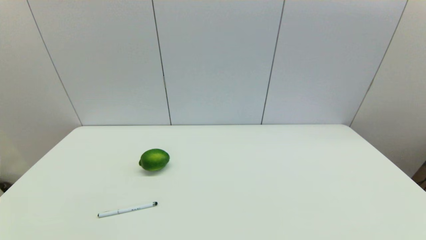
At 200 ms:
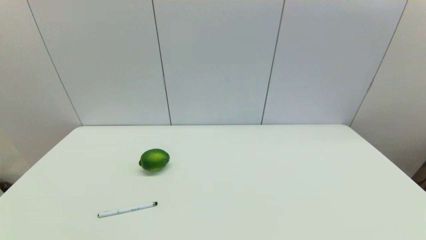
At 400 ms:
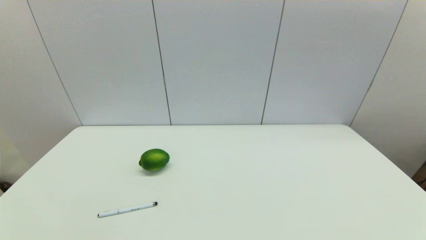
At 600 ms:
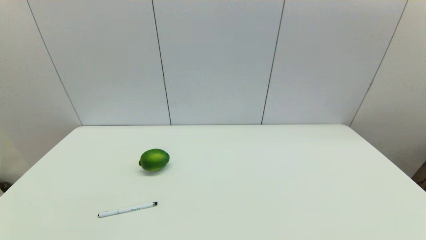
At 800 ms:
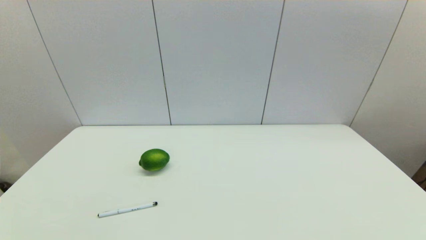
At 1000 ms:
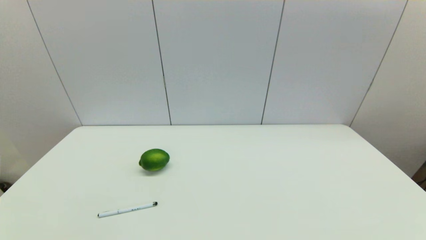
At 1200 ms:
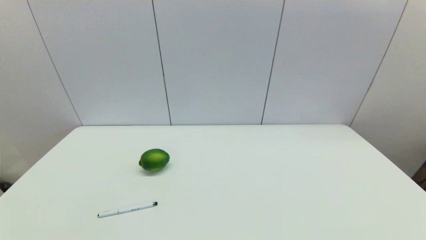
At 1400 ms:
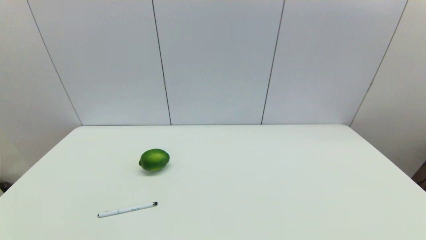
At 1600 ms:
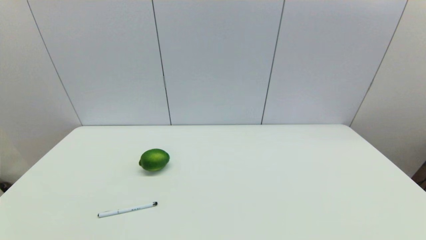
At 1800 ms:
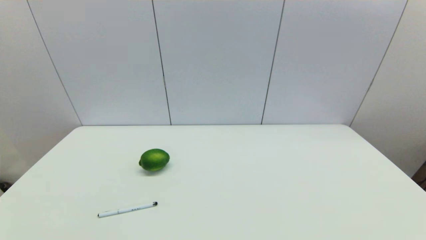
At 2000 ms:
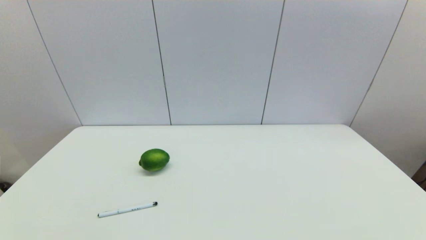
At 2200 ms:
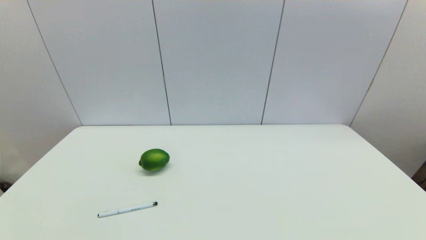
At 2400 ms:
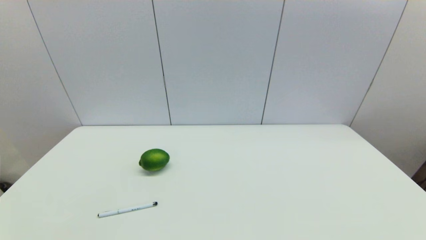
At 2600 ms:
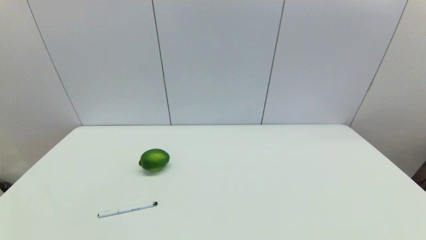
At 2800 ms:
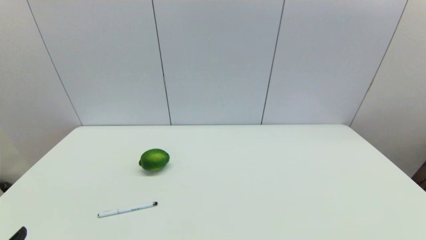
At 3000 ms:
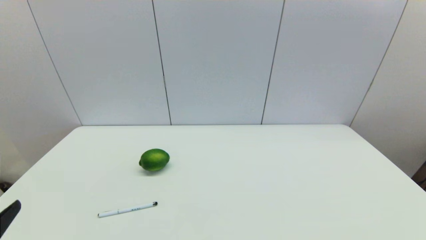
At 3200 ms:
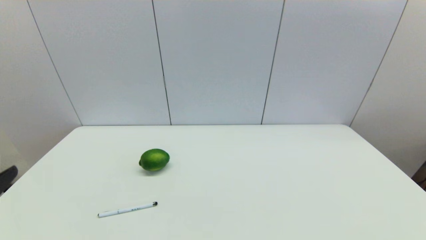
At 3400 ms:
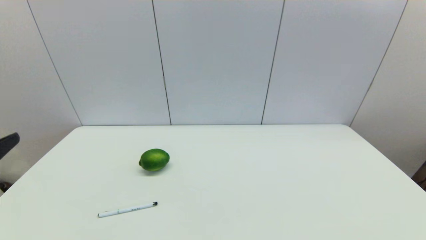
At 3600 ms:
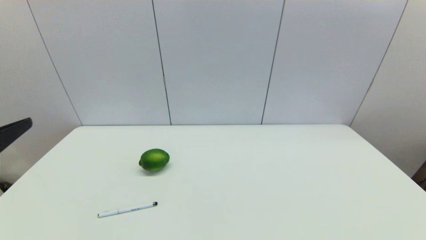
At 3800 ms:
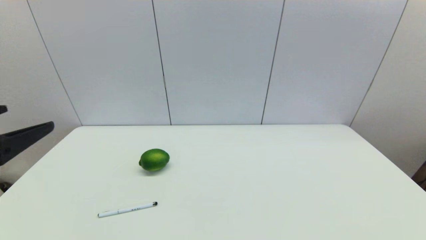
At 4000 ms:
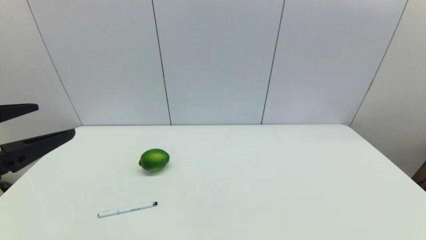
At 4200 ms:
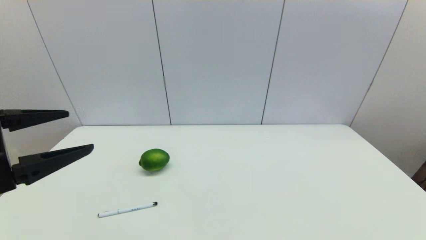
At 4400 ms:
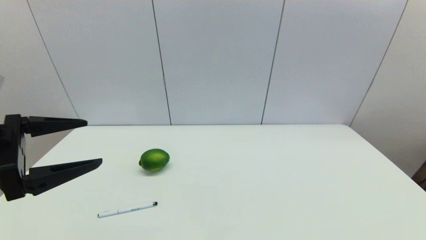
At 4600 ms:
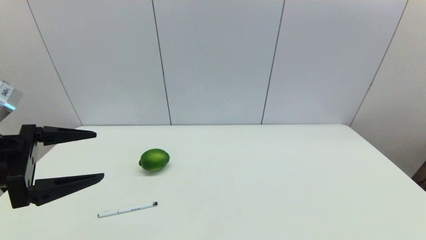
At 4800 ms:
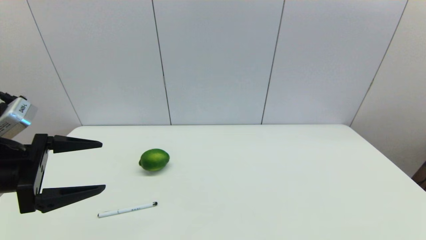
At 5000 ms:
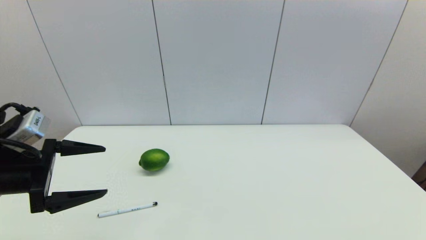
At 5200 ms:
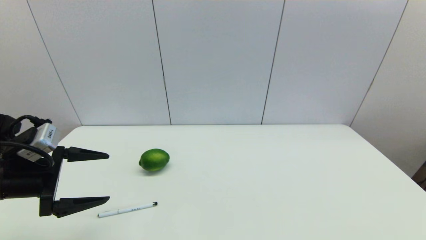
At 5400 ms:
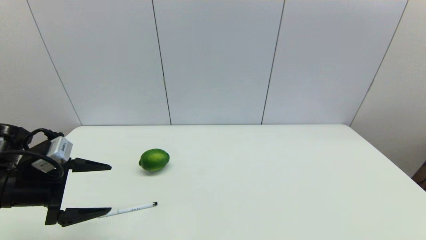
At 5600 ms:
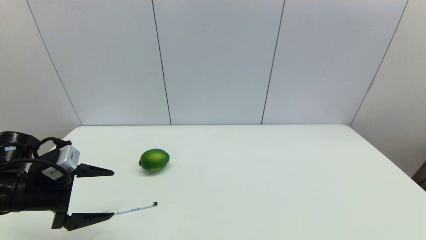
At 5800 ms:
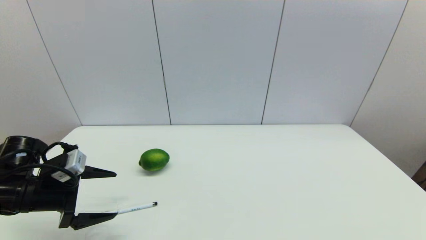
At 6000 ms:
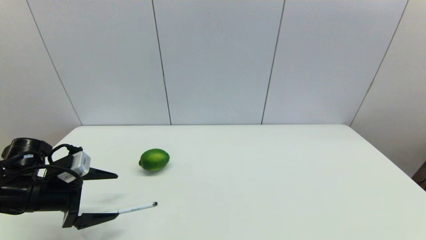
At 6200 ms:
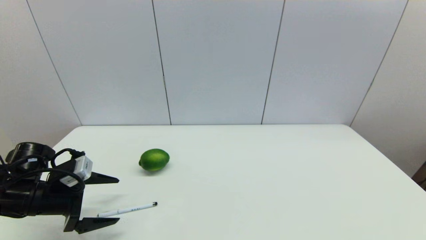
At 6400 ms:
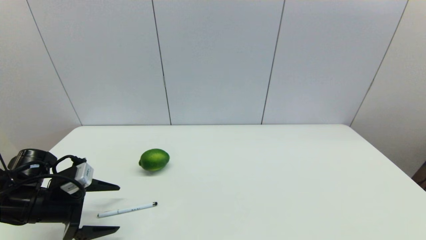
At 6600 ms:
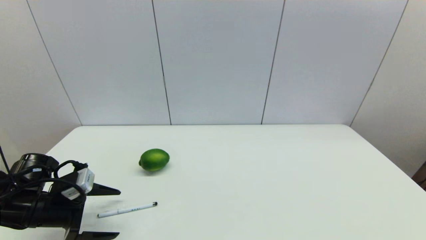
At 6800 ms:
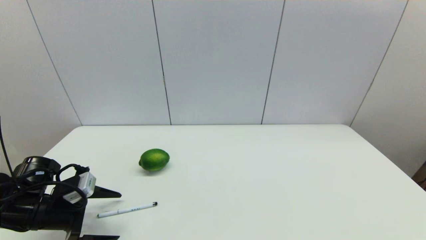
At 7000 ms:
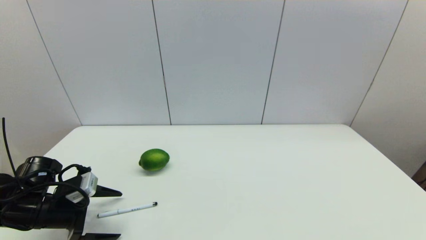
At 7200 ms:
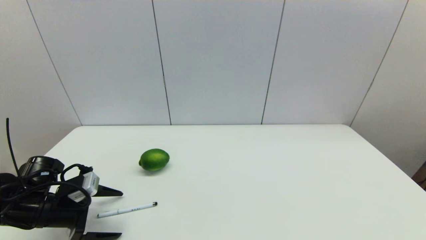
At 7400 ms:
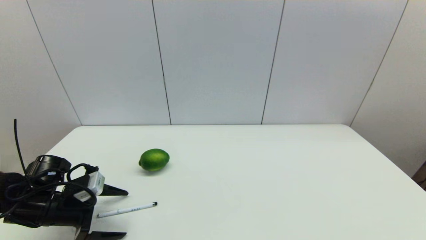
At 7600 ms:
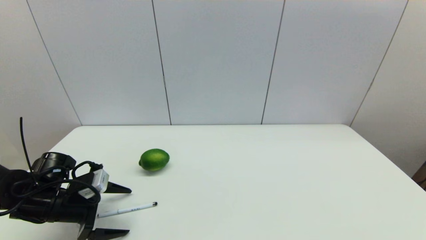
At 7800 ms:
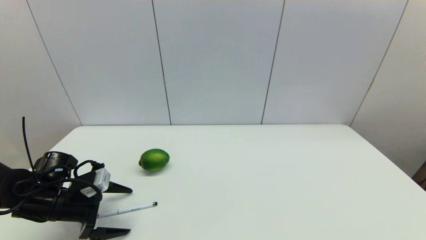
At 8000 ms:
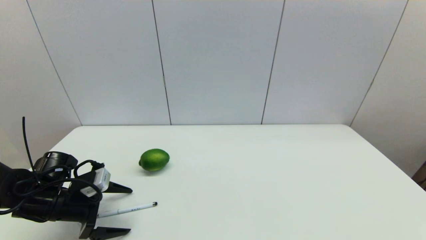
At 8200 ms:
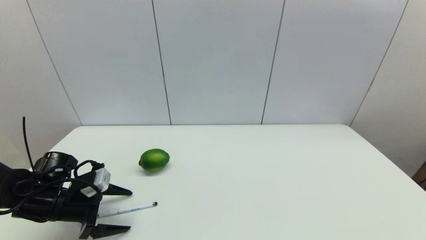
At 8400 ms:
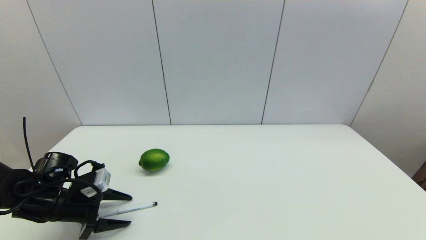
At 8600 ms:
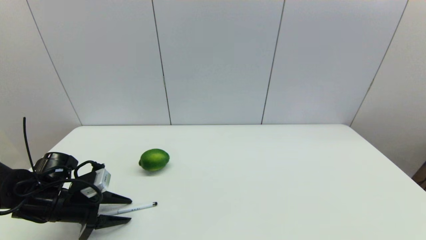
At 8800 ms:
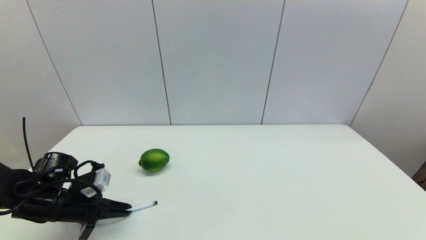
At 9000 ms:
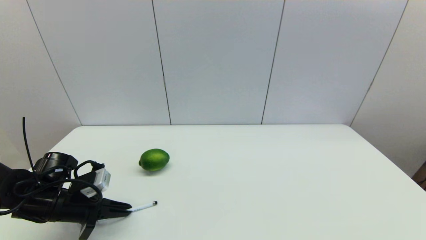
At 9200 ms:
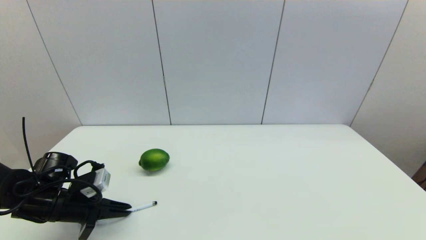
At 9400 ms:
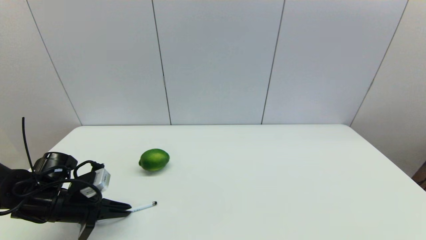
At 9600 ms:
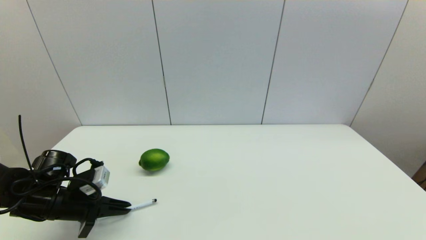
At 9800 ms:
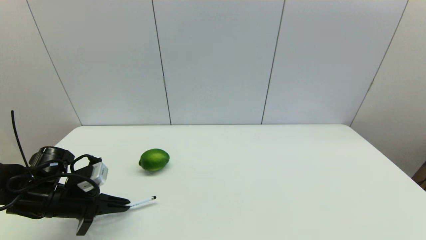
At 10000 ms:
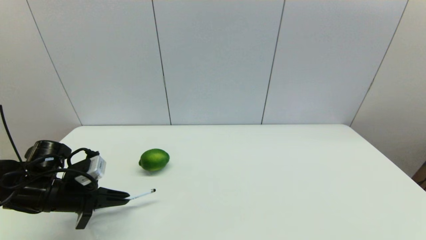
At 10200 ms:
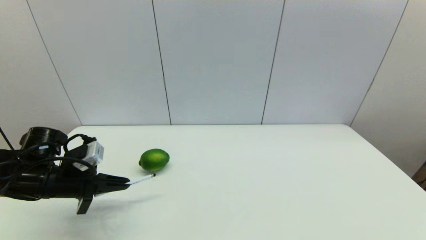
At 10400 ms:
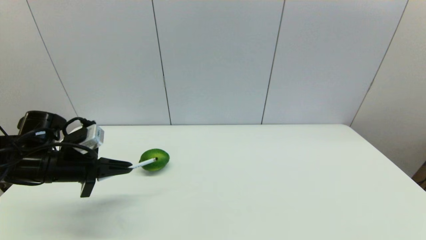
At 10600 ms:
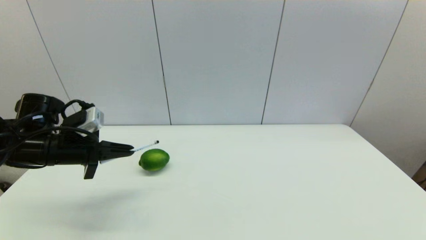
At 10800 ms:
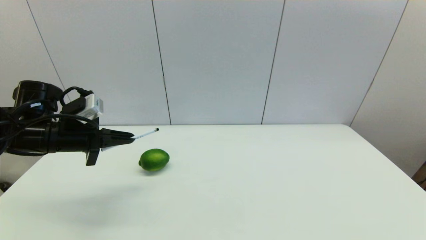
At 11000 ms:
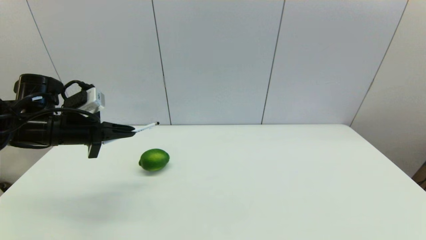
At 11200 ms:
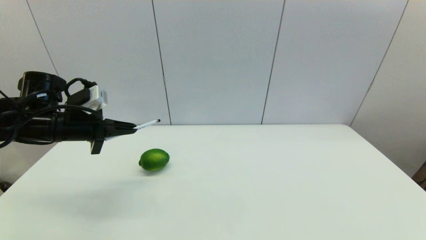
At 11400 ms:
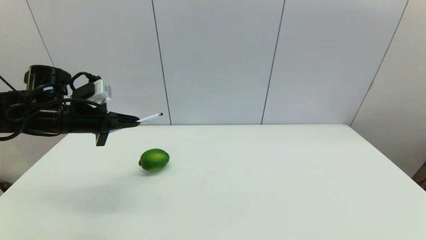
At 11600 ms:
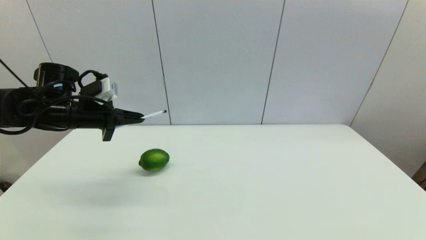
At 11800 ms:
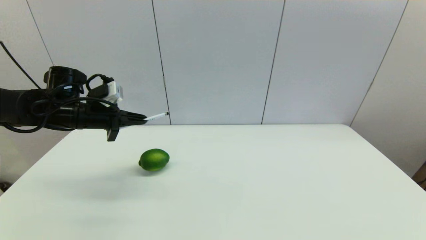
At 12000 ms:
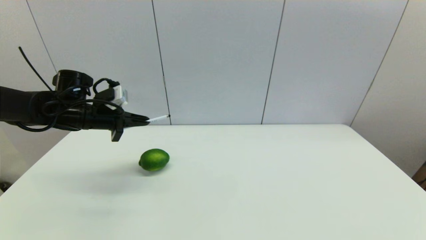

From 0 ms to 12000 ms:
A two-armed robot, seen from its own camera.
Task of the whole recording: put the pen in the designated position.
Step, from 2800 ms to 8800 ms: Grasp the sign pen with left gripper.
From 0 ms to 1600 ms: Neither gripper changes place.
From 3000 ms to 4400 ms: The left gripper is displaced forward and upward by about 15 cm.
From 4400 ms to 6000 ms: The left gripper goes some 15 cm downward and forward.
From 6000 ms to 7600 ms: The grippers stay close to where they were, moving slightly.
From 7600 ms to 9000 ms: The left gripper closes.
From 9000 ms to 10400 ms: The left gripper shifts about 10 cm upward.
From 10400 ms to 12000 ms: The left gripper heads forward, covering about 10 cm.

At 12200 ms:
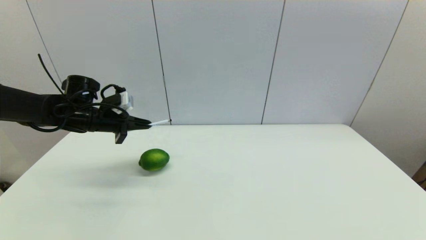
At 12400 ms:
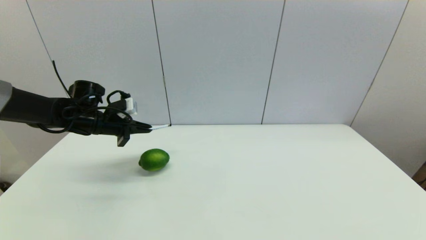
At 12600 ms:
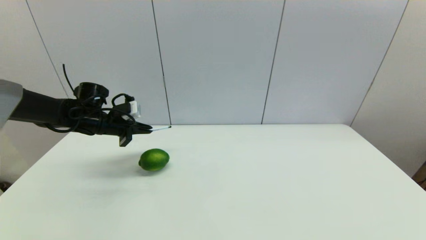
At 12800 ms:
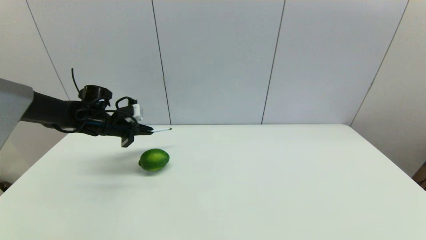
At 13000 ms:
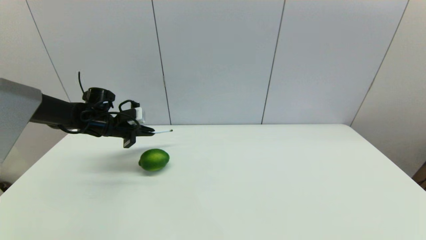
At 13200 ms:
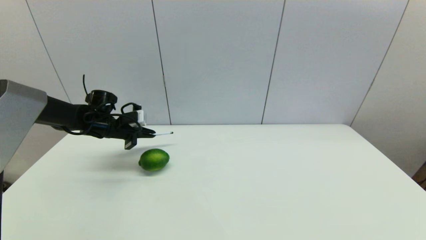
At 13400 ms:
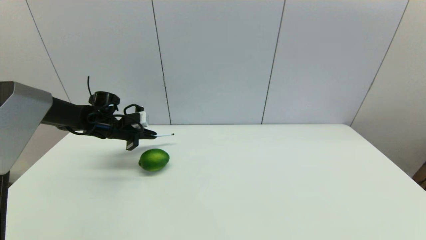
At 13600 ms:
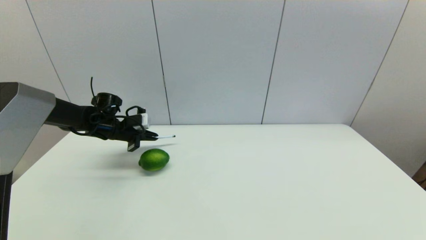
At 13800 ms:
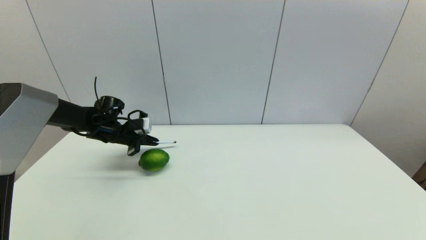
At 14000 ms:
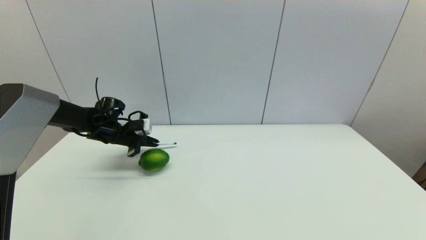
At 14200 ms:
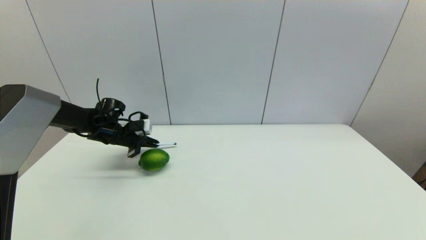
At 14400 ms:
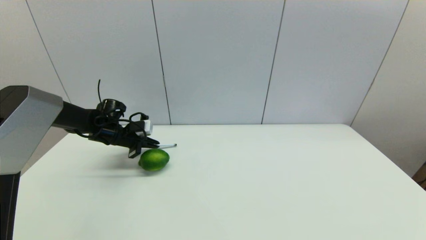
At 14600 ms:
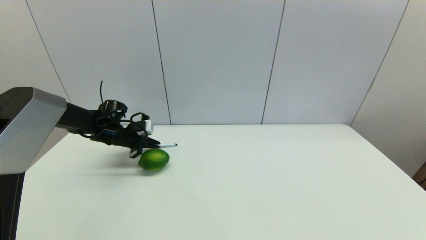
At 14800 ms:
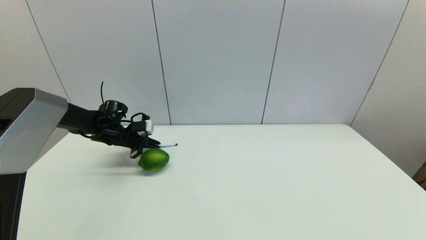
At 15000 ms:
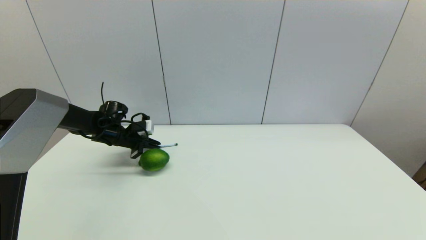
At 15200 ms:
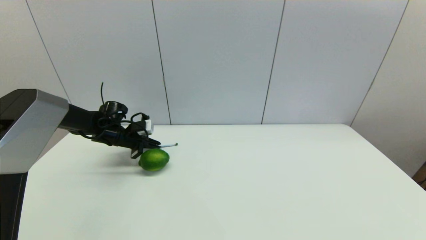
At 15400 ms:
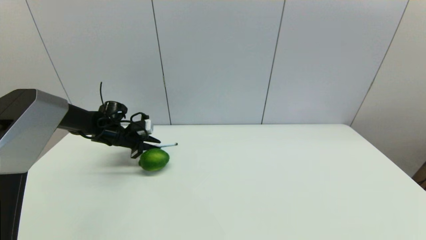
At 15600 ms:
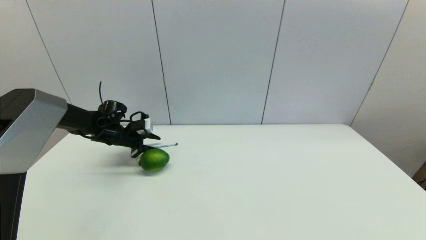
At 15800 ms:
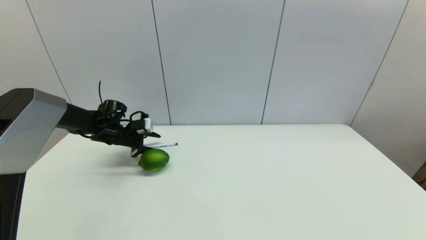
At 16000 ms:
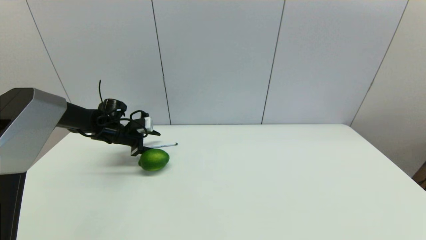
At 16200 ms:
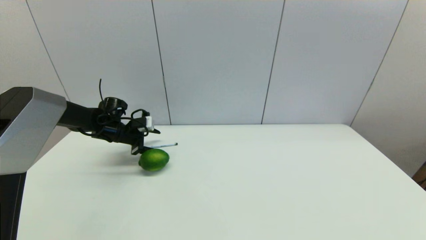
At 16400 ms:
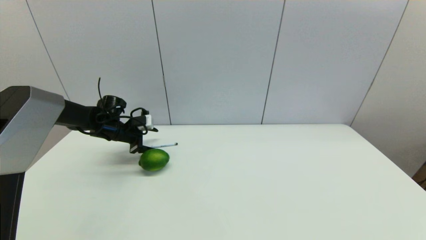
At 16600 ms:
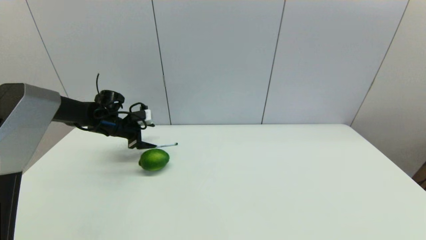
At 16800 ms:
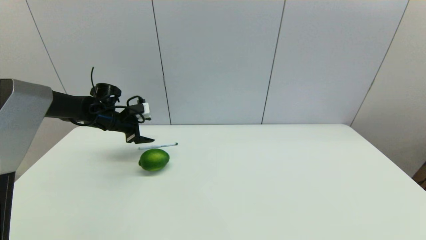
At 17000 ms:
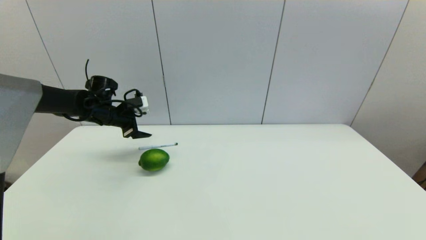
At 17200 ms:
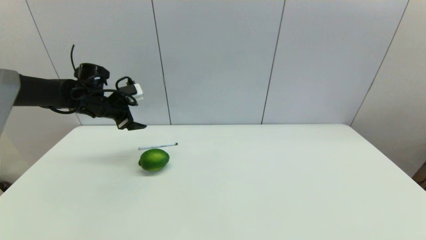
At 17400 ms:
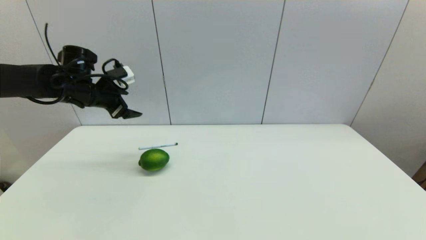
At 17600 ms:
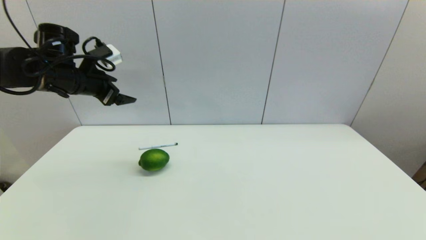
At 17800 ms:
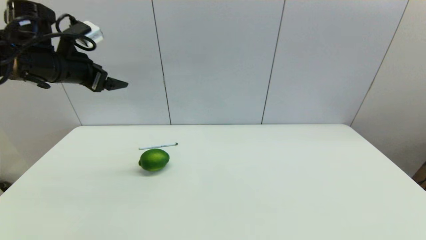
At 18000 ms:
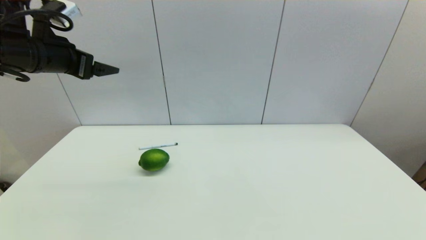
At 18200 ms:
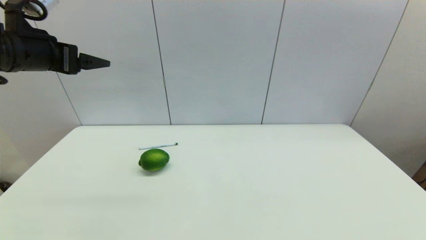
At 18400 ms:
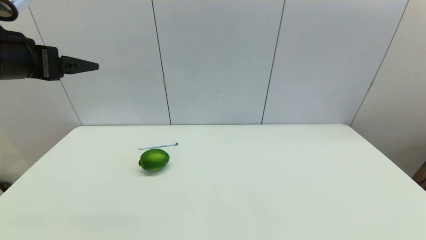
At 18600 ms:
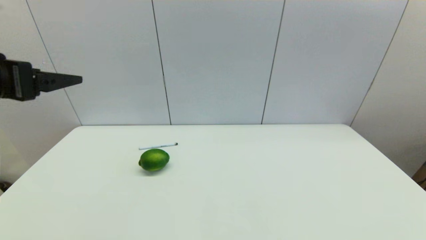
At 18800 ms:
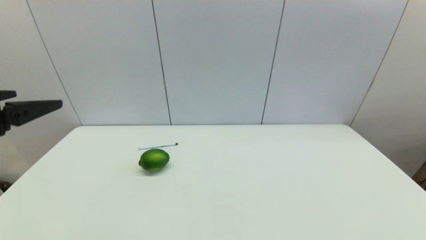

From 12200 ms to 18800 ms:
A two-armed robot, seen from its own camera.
Task of the whole recording: put the pen in the designated position.
Step, from 12200 ms to 15600 ms: Place the sign pen on the table with left gripper.
From 12200 ms to 13800 ms: The left gripper heads downward, covering some 5 cm.
From 13800 ms to 15400 ms: The grippers move only a little.
From 15400 ms to 17200 ms: The left gripper shifts approximately 10 cm upward, and opens.
From 17200 ms to 18800 ms: The left gripper is displaced backward by some 30 cm.
